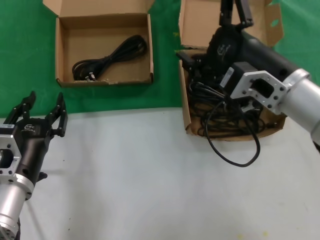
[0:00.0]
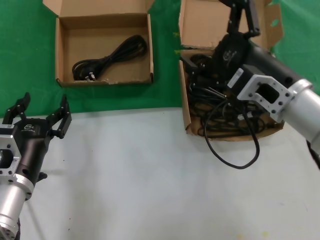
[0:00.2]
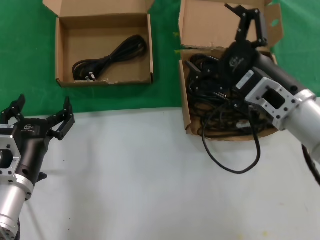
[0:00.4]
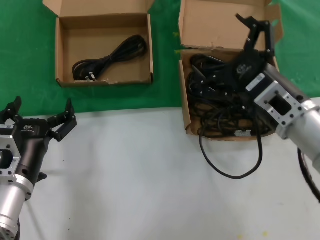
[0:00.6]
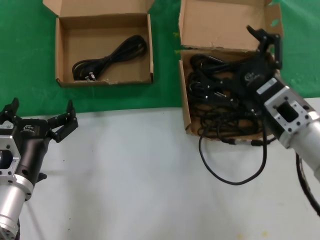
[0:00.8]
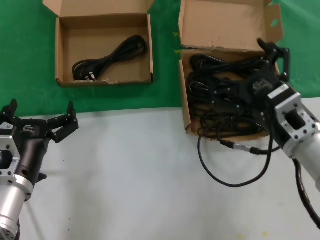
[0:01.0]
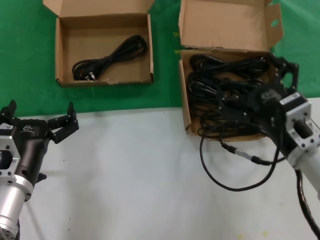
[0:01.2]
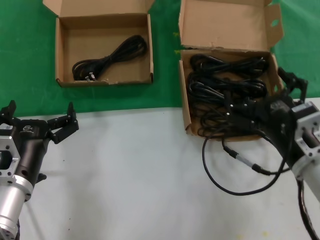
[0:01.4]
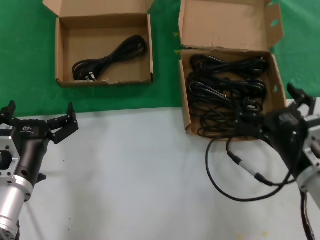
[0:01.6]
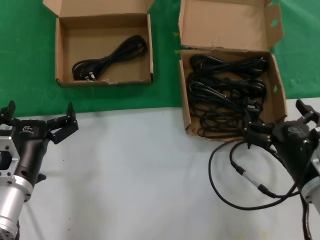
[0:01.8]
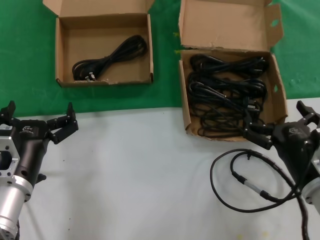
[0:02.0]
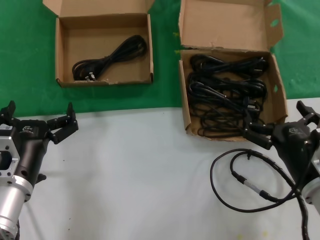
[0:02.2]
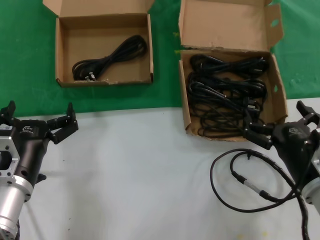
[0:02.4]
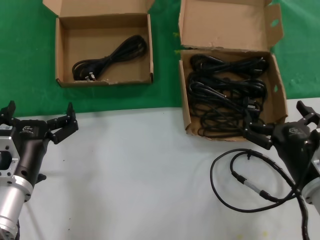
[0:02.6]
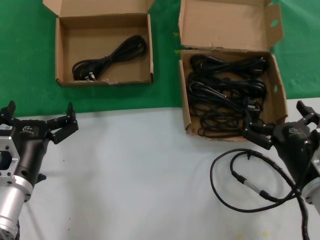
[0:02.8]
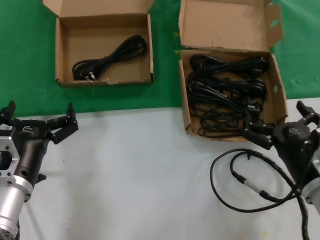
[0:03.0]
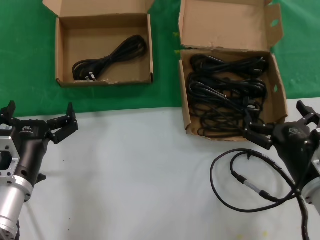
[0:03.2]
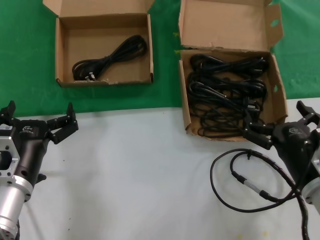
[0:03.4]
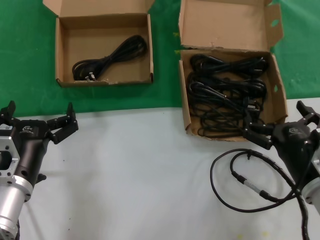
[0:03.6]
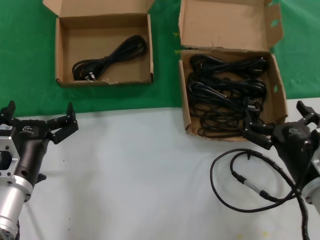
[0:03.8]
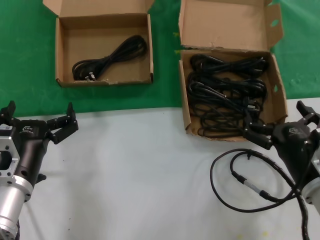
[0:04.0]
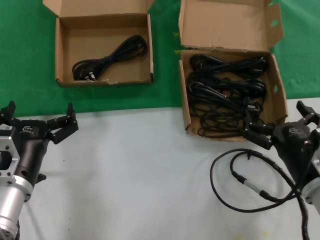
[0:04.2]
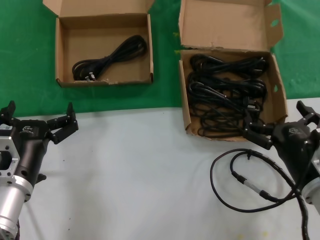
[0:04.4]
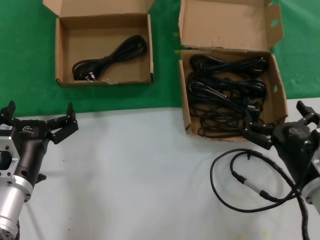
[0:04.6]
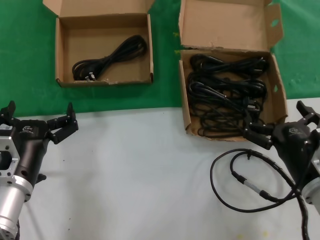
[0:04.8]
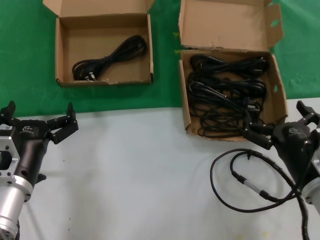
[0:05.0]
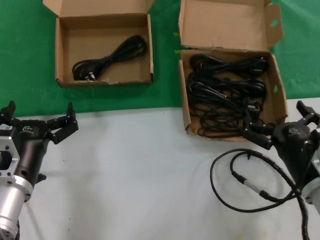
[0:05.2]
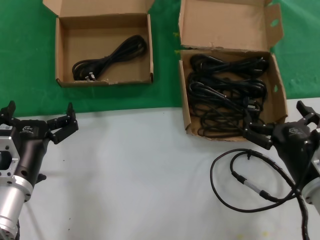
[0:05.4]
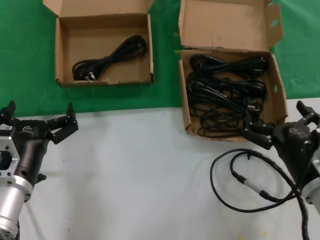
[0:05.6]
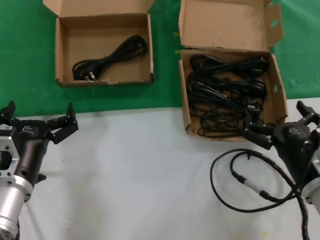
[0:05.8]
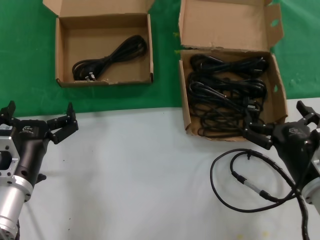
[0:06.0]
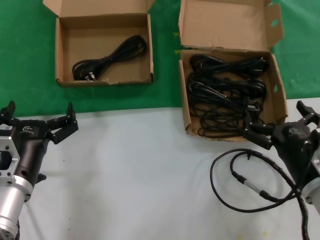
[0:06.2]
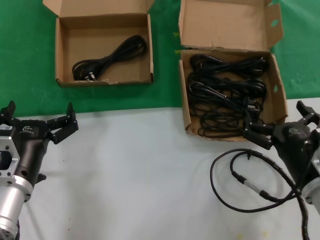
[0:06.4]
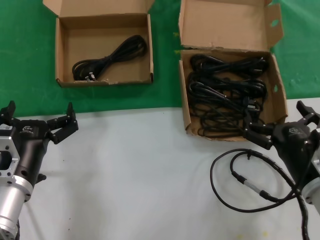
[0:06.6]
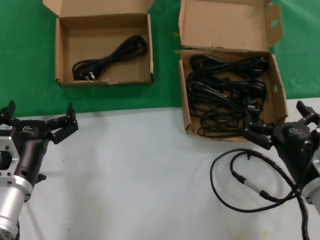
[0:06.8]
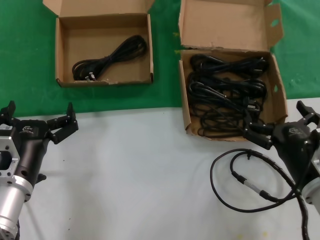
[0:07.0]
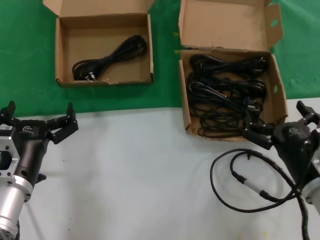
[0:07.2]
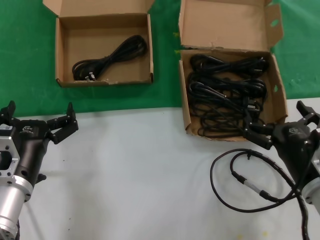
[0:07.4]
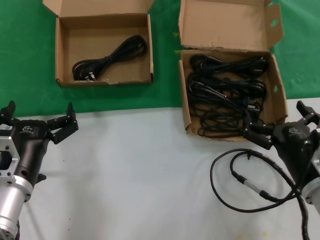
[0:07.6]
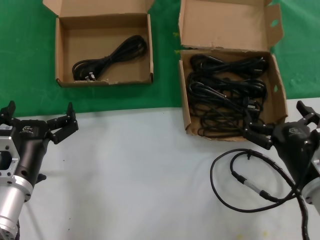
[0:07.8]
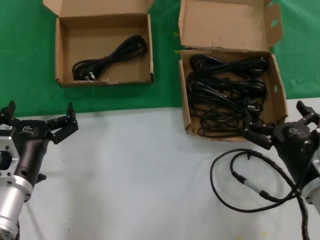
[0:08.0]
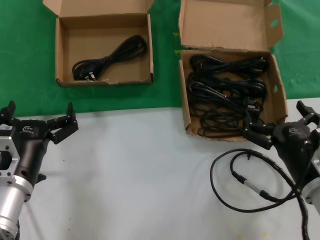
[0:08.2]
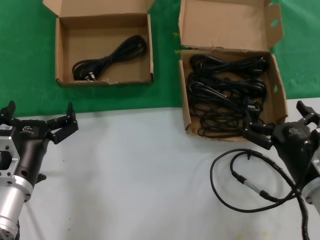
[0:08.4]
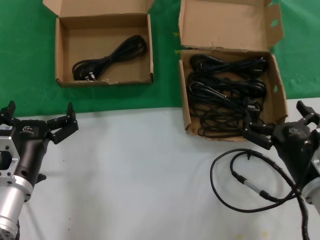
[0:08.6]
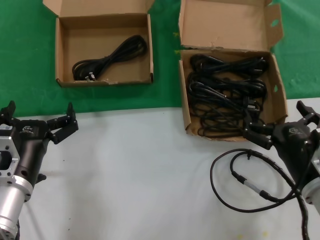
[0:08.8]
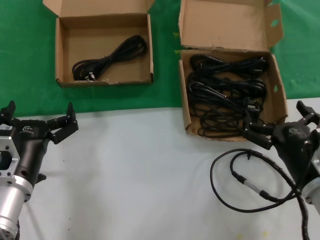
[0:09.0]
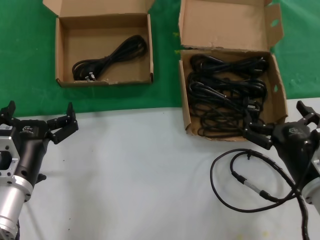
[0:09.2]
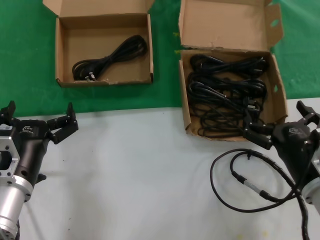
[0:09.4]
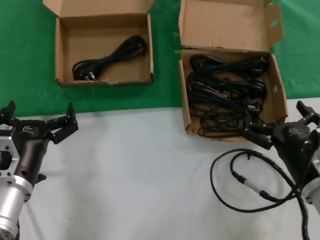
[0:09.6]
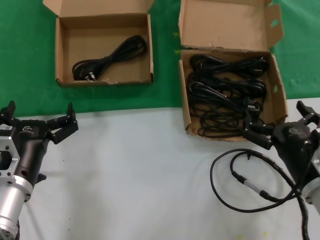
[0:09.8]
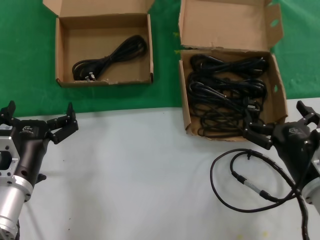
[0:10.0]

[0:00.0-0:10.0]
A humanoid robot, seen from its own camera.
Task of the whole recording: take the parts from the box containing them and put them into an empty box.
0.0 to 1.4 s: The right hand travels downward by roughly 15 cm.
1.4 to 2.8 s: The right hand moves about 5 cm.
2.8 to 10.0 s: Both hands stay about where they are.

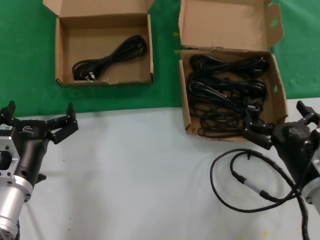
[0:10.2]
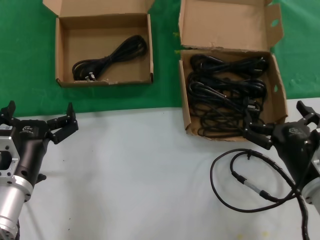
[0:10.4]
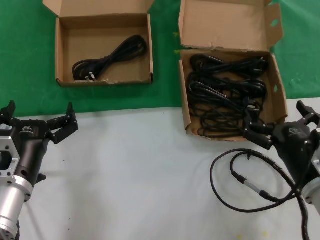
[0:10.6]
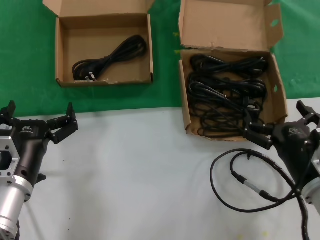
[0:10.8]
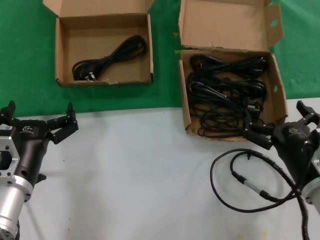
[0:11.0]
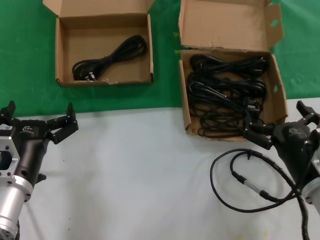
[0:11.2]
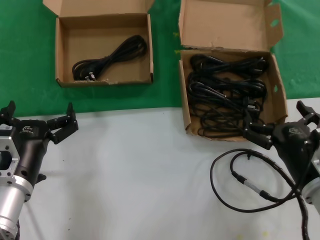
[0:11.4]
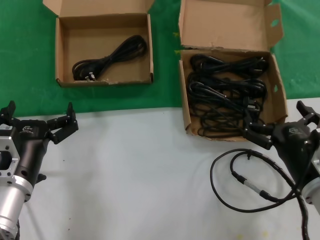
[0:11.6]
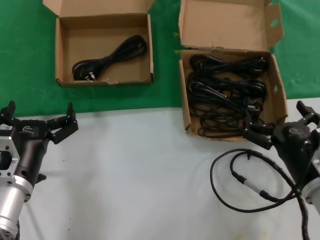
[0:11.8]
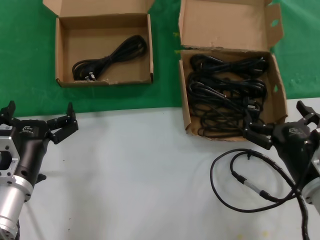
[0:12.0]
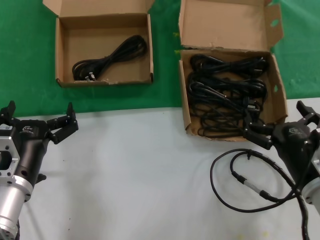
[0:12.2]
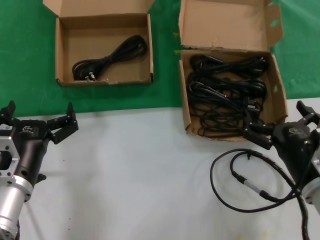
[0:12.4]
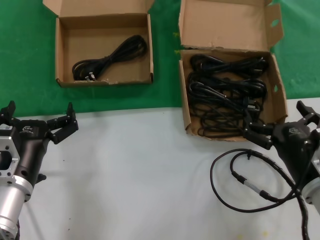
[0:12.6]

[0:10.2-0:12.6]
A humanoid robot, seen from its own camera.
Task of the whole recording: take the parts from the box containing them and put them into an empty box.
10.2 to 12.6 s: Both hands stay about where they are.

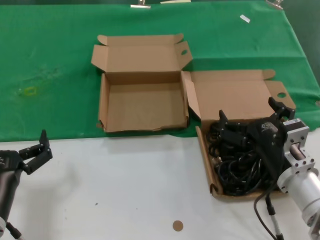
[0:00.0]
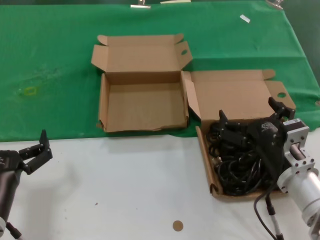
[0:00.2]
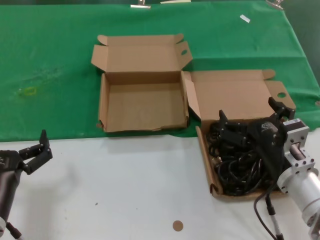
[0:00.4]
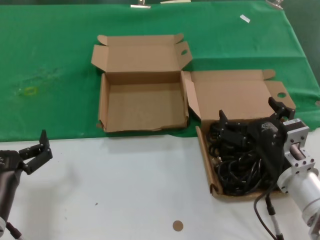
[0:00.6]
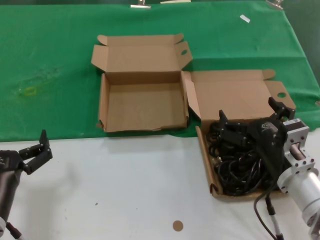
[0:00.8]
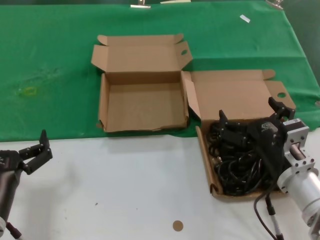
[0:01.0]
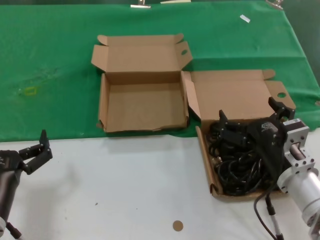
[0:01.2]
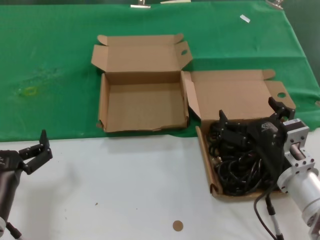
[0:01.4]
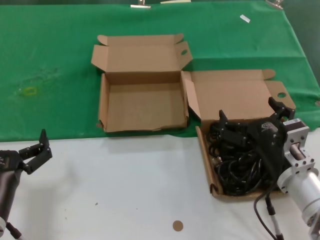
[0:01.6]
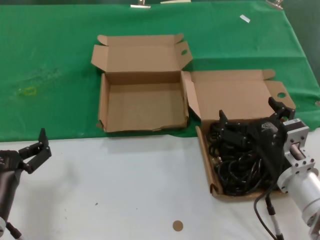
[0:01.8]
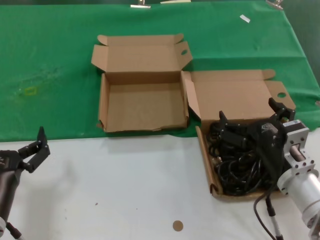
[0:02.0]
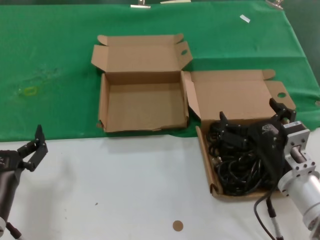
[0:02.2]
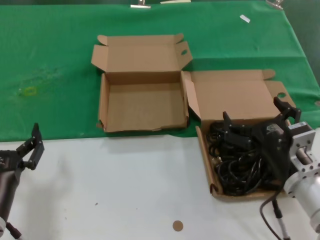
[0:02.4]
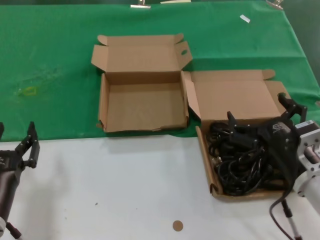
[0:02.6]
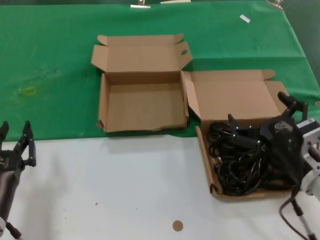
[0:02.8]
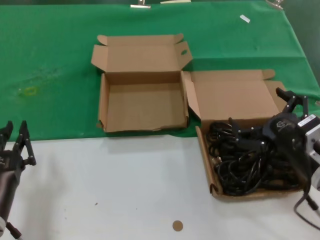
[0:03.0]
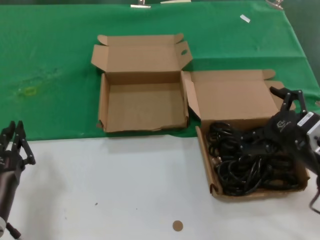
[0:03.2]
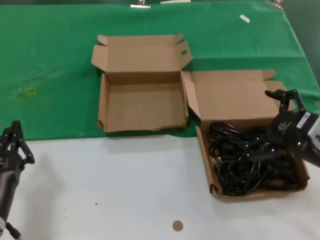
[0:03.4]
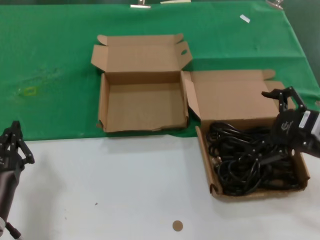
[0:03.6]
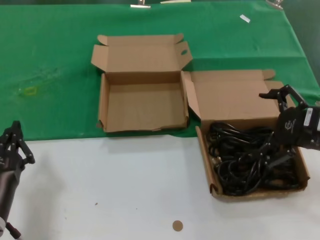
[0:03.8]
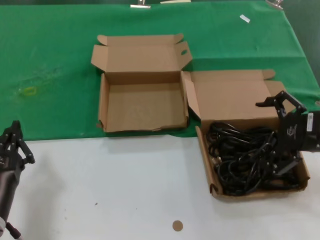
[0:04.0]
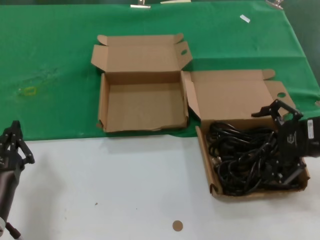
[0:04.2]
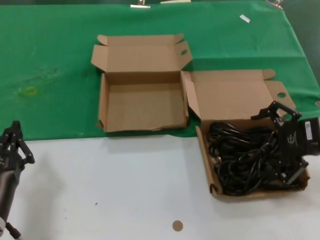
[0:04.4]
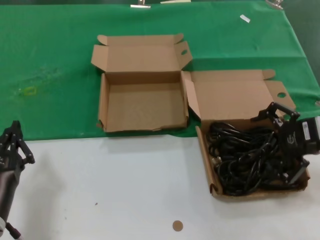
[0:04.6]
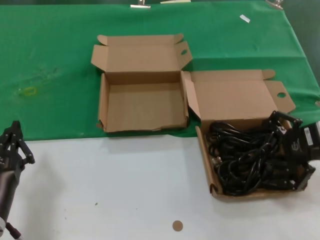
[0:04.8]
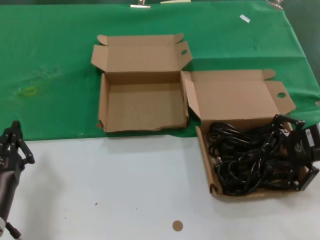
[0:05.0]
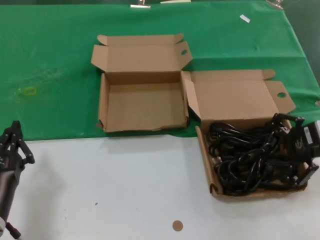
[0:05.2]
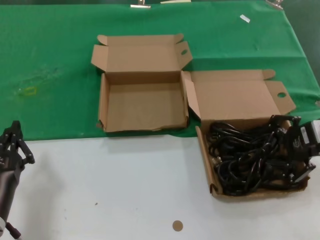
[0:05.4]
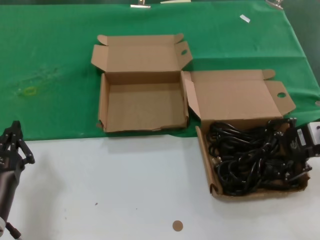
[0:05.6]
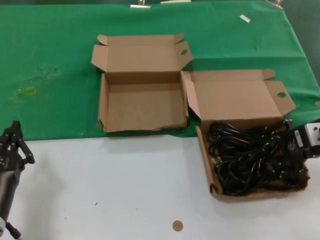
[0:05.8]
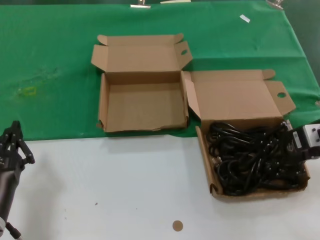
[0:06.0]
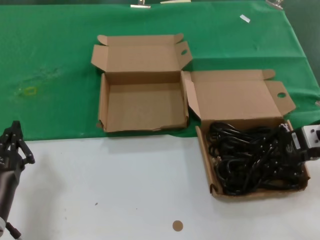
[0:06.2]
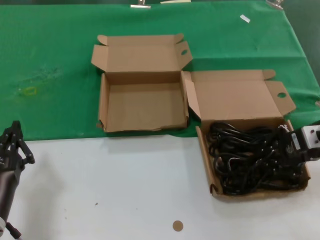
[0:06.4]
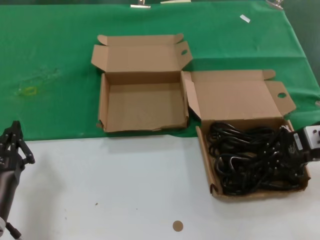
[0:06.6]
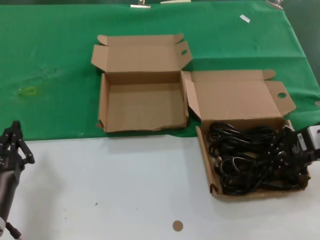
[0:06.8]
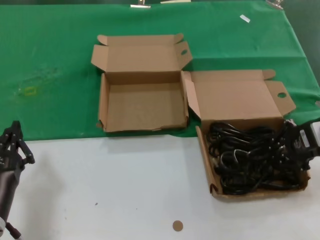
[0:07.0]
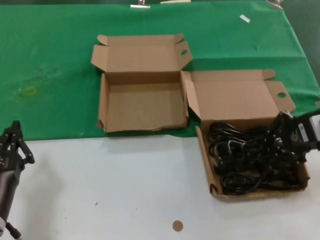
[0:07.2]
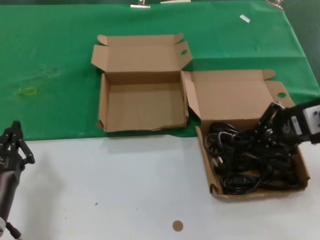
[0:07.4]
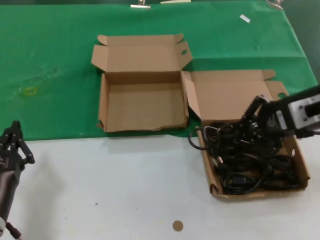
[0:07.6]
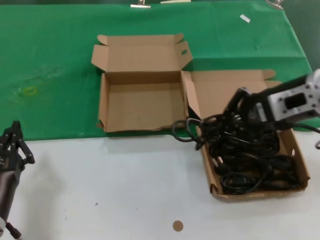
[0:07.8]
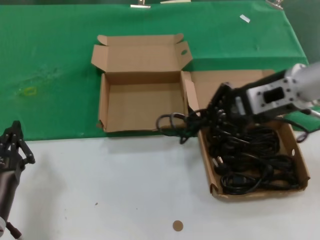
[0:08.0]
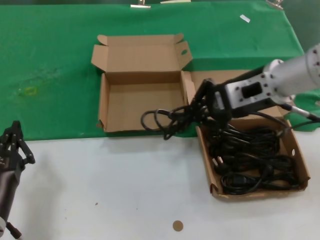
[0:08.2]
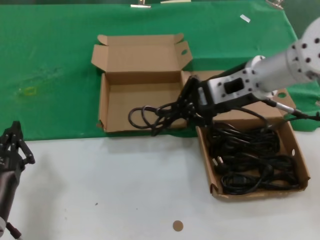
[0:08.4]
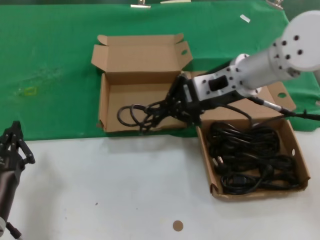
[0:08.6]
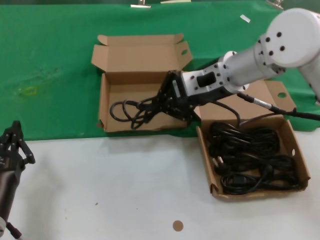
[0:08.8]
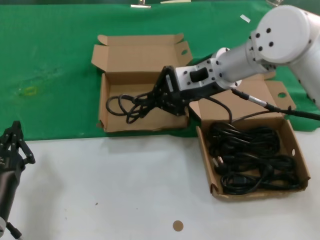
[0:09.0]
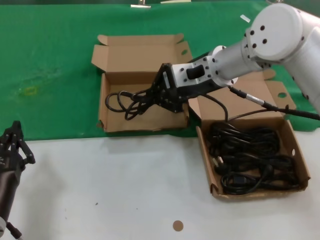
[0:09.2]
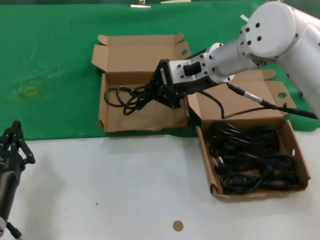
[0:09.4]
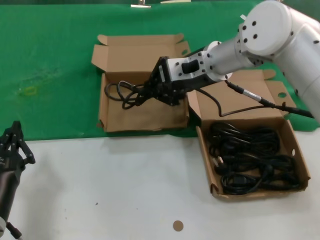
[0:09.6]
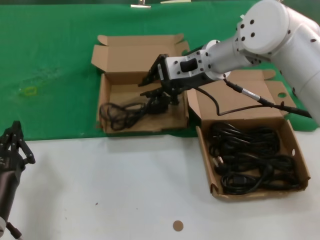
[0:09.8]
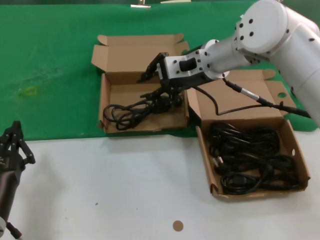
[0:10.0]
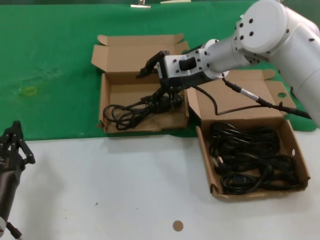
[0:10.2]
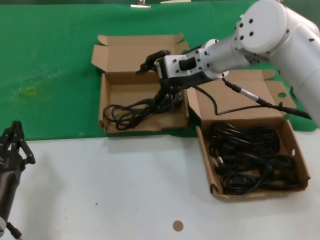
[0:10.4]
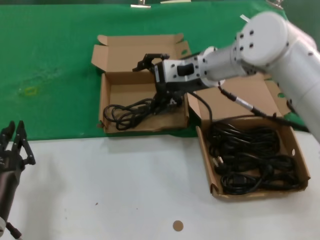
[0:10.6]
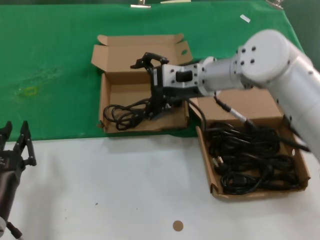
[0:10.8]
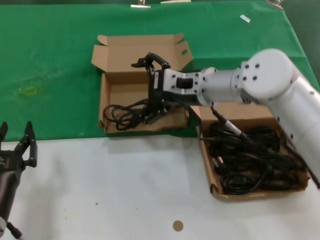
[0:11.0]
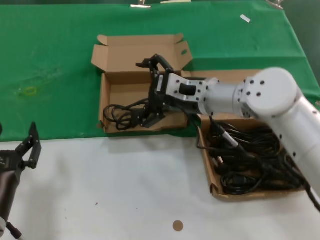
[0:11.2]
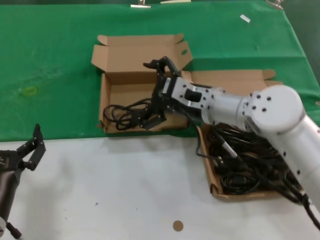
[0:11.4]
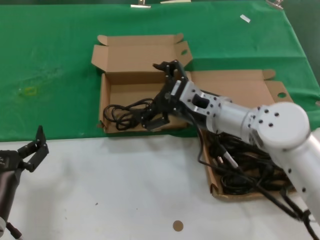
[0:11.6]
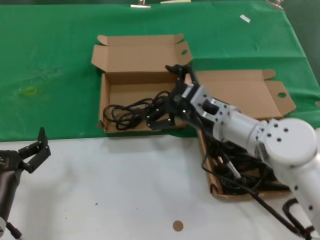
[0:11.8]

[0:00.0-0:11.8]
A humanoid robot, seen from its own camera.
Task of the whole recording: take the parts from the box containing them and put them into an empty box.
Step, 0.0 to 6.6 s: Grasp the data cable.
Step, 6.8 to 10.0 s: Place the data cable in the another box.
0.0 to 1.4 s: Both hands stay about where they are.
1.4 to 3.0 s: The right hand ends up roughly 5 cm from where it was.
3.0 to 4.4 s: The right hand heads upward, to the right and forward, covering about 15 cm.
4.4 to 6.0 s: The hands stay close to where they were, moving slightly.
6.0 to 7.4 s: The right hand moves upward, some 5 cm.
7.4 to 8.8 s: The right hand is displaced to the left and forward by some 20 cm.
8.8 to 10.4 s: The right hand moves forward, about 5 cm.
10.4 to 11.8 s: The right hand heads downward and backward, covering approximately 15 cm.
